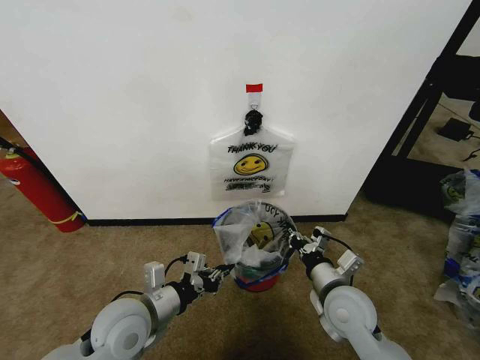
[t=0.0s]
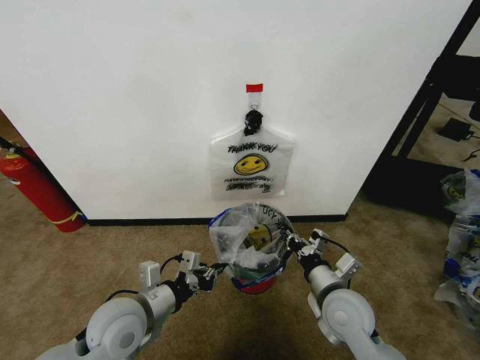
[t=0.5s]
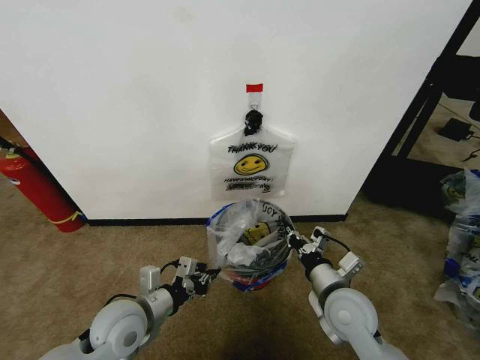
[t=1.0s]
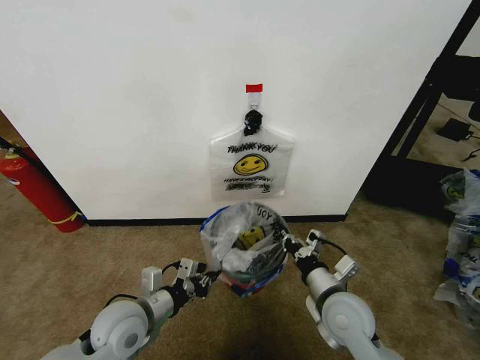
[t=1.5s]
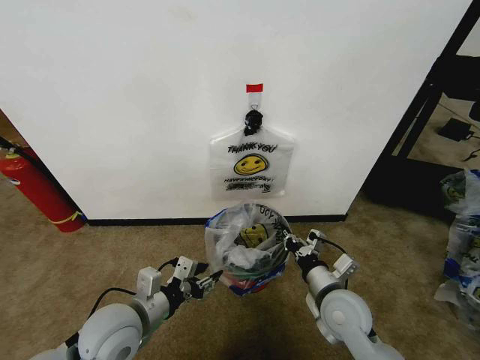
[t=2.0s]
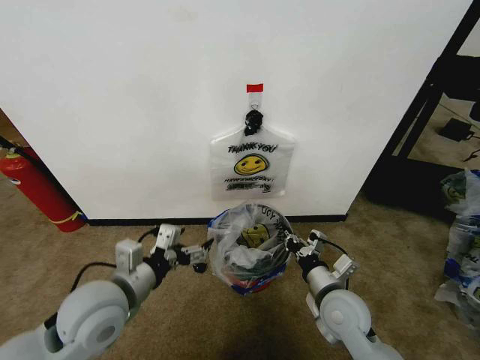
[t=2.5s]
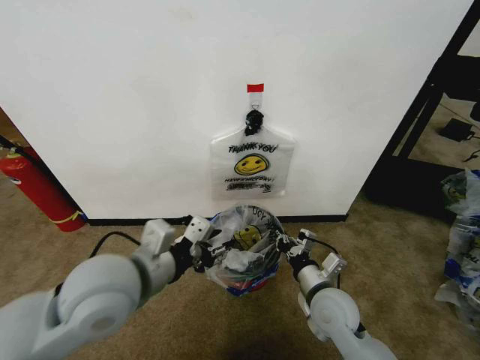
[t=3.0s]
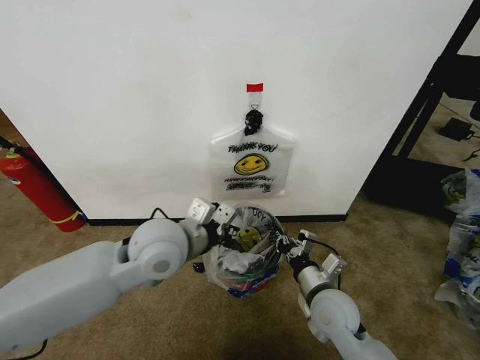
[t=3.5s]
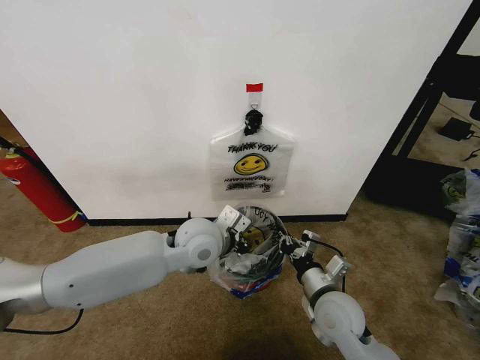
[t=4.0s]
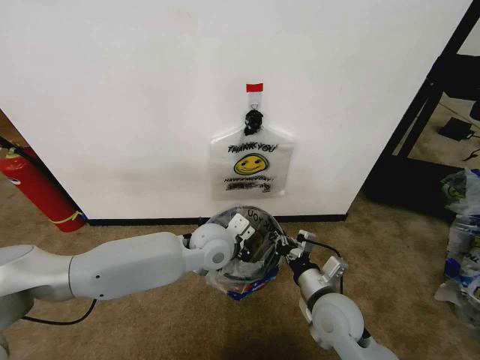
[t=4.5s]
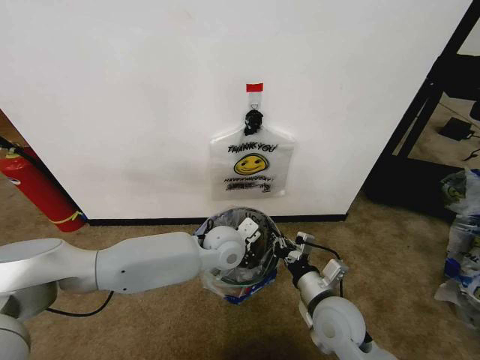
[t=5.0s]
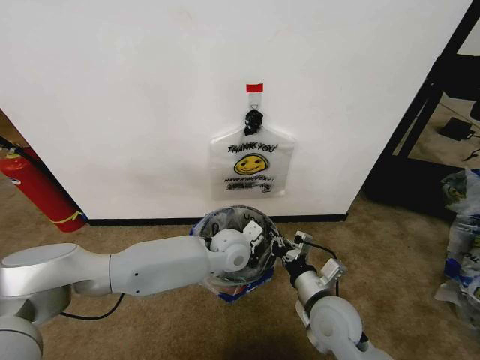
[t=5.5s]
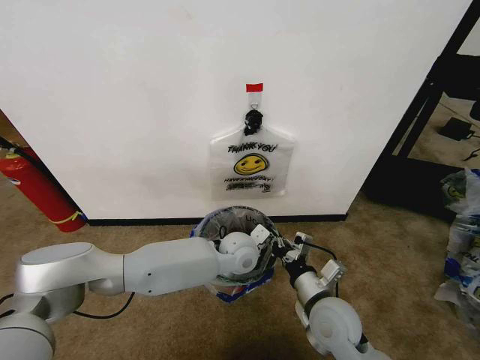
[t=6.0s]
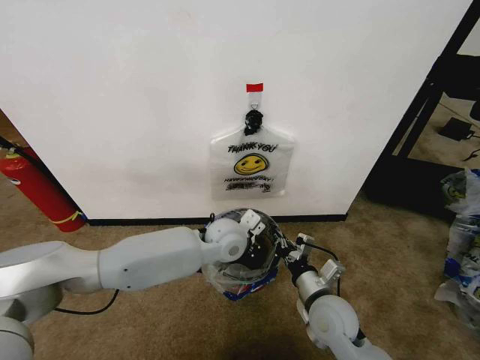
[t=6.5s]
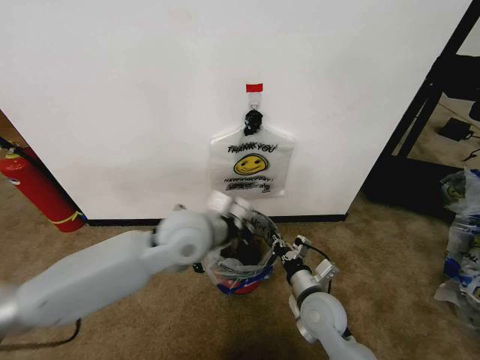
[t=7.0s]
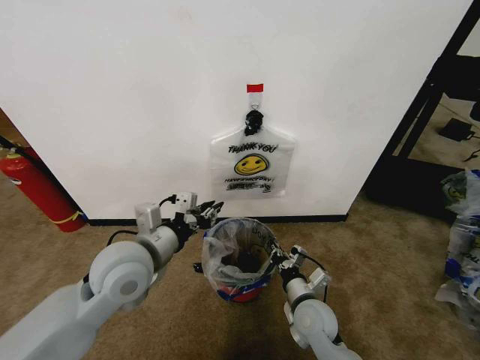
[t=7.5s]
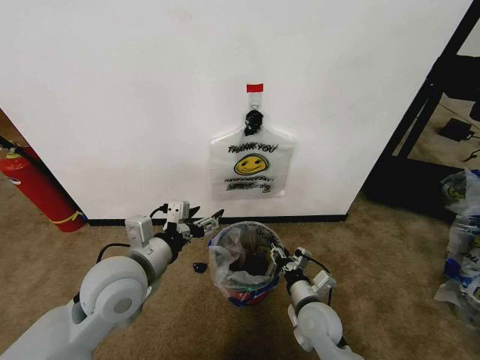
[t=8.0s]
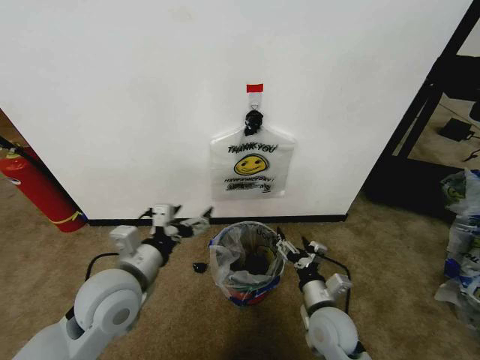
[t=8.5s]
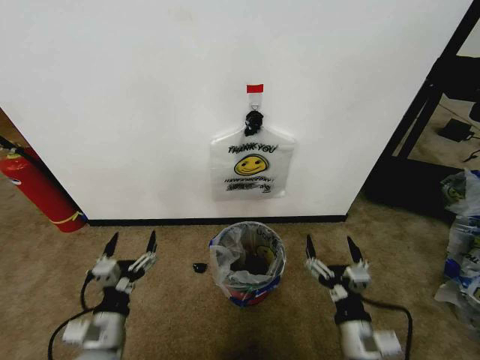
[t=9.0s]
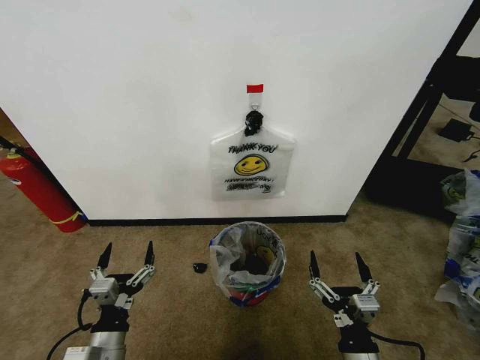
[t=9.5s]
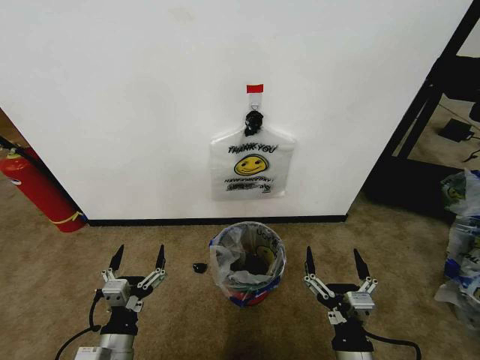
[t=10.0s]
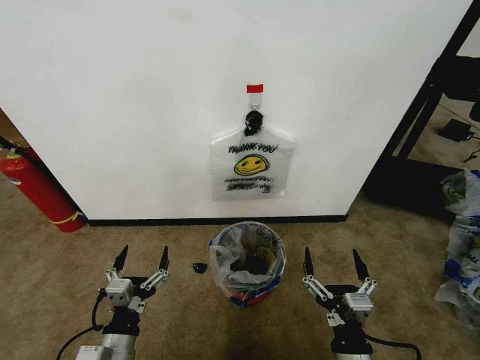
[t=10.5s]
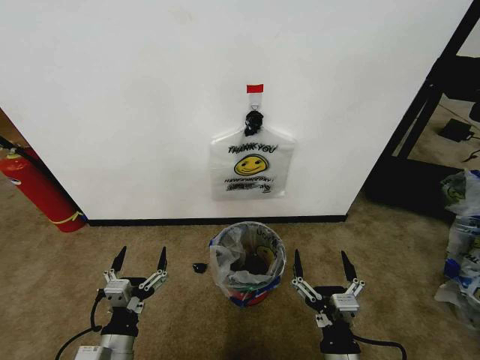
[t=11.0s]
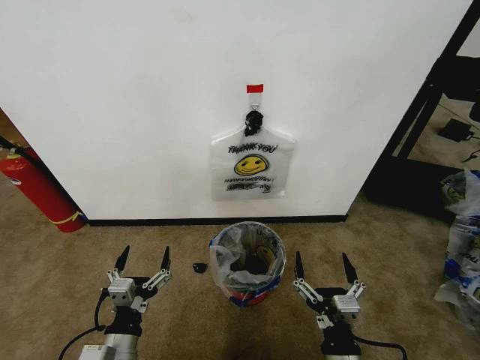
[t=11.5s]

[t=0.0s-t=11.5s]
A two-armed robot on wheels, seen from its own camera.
Task of the whole recording: Pick up the garbage bag from the wall and place it over the trash bin.
t=0.0s to t=2.0s: The left gripper opens its fingers.
t=2.0s to t=4.0s: The left gripper shifts about 20 cm forward, to the right and upward, and closes.
t=4.0s to t=6.0s: The left gripper heads downward and to the right, covering some 15 cm.
t=6.0s to t=7.5s: The right gripper travels downward by roughly 10 cm; the left gripper heads to the left, upward and backward, covering approximately 25 cm.
t=7.5s to t=9.5s: The left gripper is displaced downward and backward by roughly 25 cm, and opens up, while the right gripper goes about 15 cm backward, and opens up.
t=9.5s to t=11.5s: The grippers stay close to where they were, moving slightly.

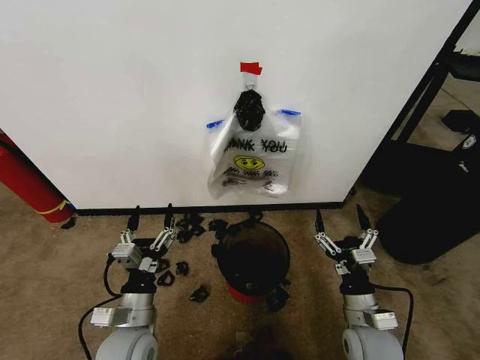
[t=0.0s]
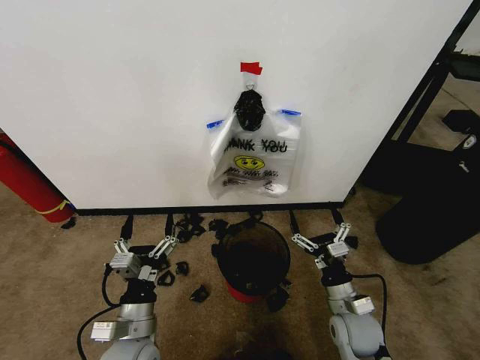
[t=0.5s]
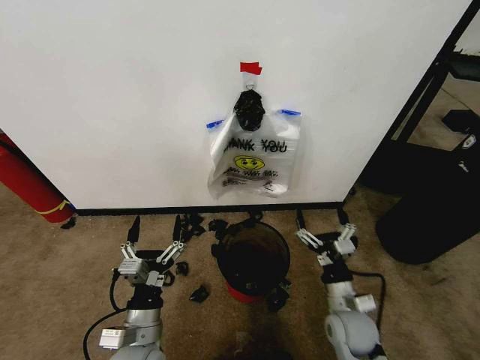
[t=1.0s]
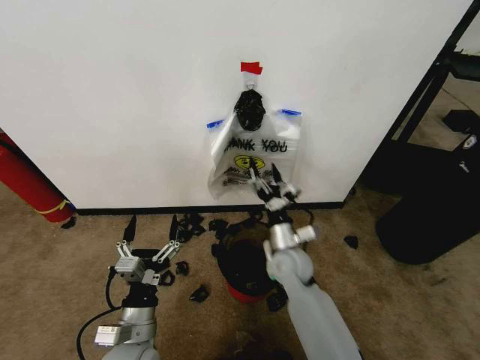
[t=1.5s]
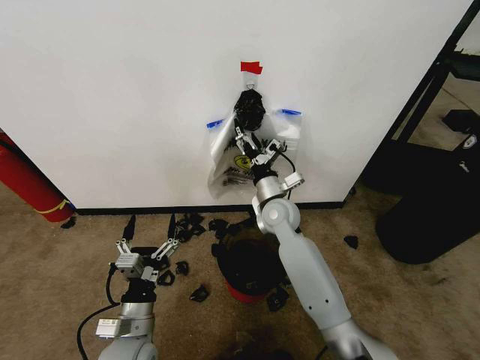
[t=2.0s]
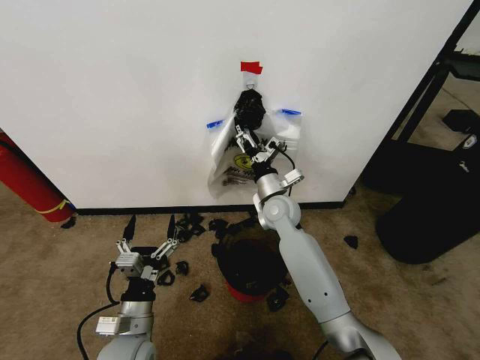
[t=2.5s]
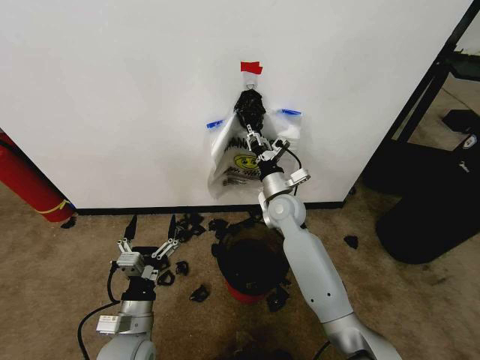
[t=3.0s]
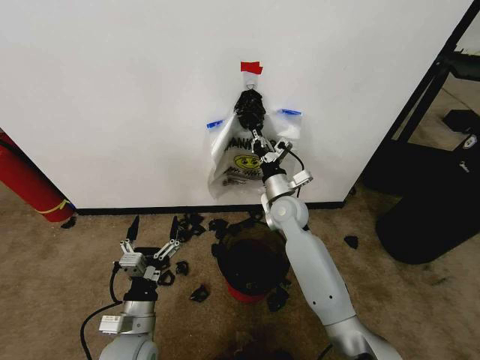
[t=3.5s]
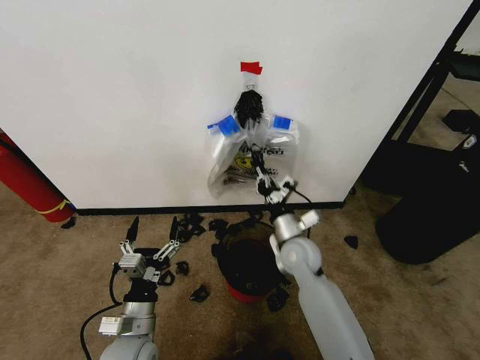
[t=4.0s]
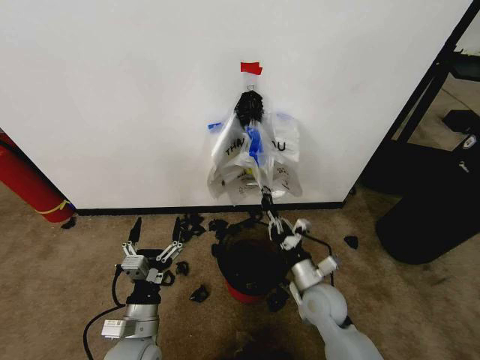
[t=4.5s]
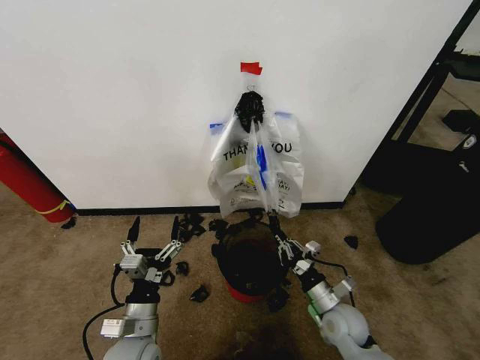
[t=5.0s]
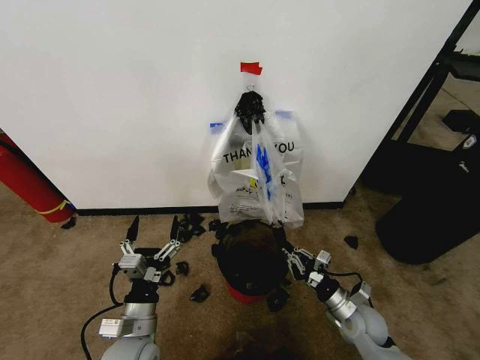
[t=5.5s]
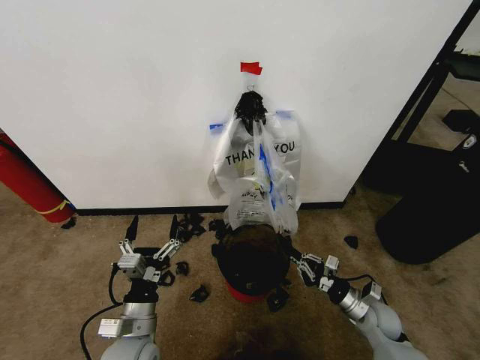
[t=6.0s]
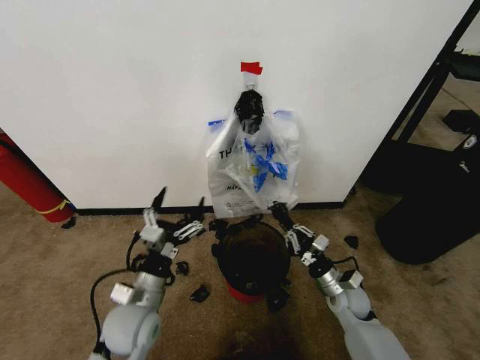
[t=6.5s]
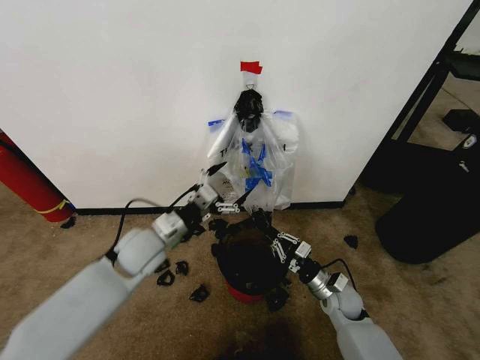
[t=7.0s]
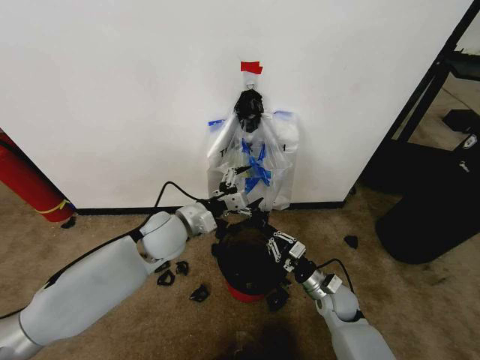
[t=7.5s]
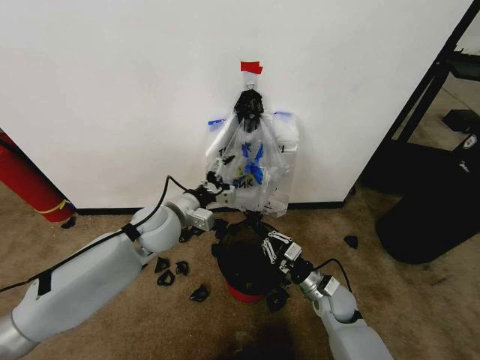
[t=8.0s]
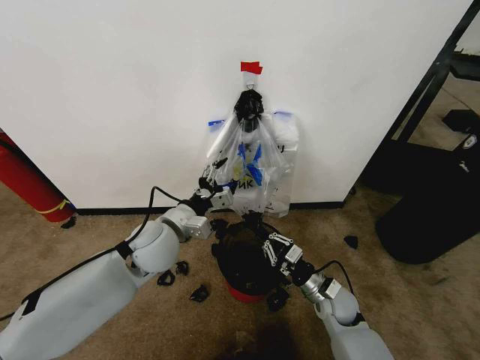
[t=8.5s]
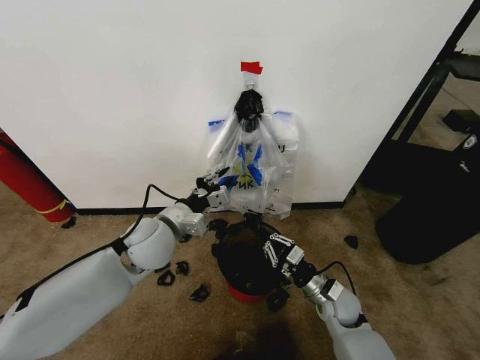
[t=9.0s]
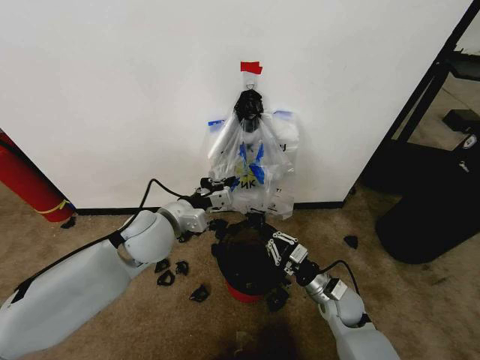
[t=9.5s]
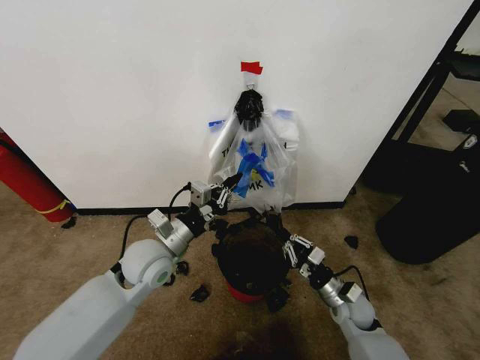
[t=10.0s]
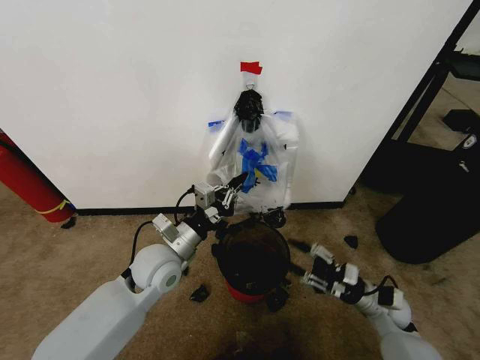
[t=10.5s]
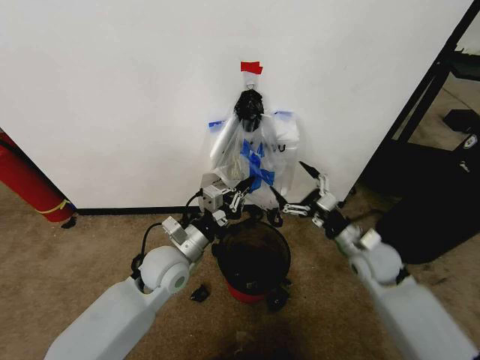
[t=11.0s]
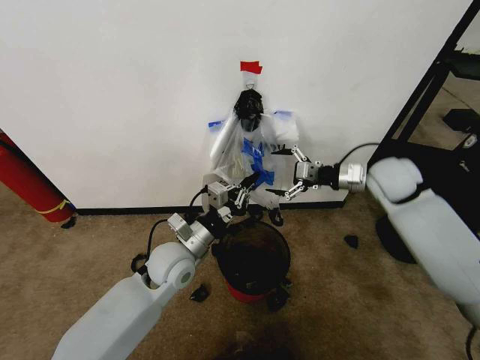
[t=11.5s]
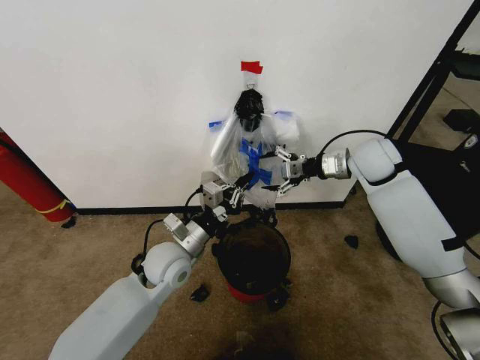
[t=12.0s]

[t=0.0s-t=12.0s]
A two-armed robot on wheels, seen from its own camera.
Task of the whole recording: Pick up the garbage bag from the wall and place it over the trash bin.
t=2.0s to t=4.0s: The right gripper moves backward and downward, some 10 cm, and closes up.
t=4.0s to t=6.0s: The right gripper shifts some 25 cm to the right, downward and backward.
t=6.0s to t=8.0s: The right gripper goes roughly 10 cm to the left, while the left gripper shifts about 25 cm forward and upward.
t=8.0s to t=10.0s: The left gripper is displaced backward by about 5 cm, and closes its fingers.
t=10.0s to t=12.0s: The right gripper is displaced upward and forward by approximately 40 cm, and opens, while the left gripper changes place by roughly 5 cm.

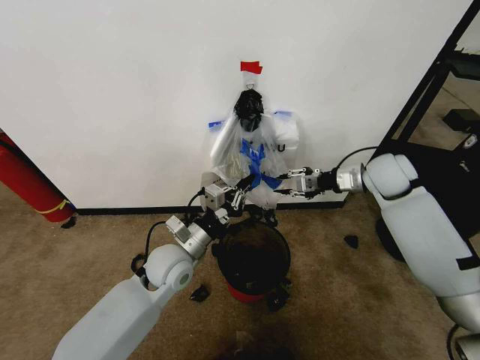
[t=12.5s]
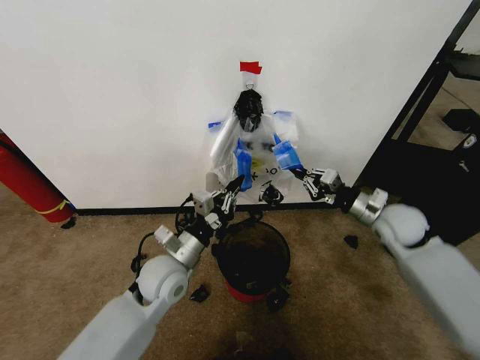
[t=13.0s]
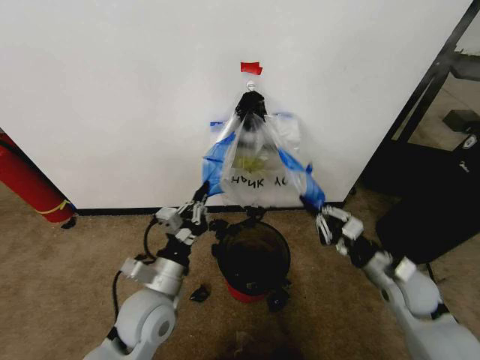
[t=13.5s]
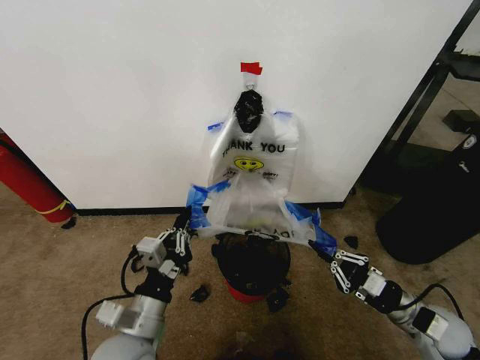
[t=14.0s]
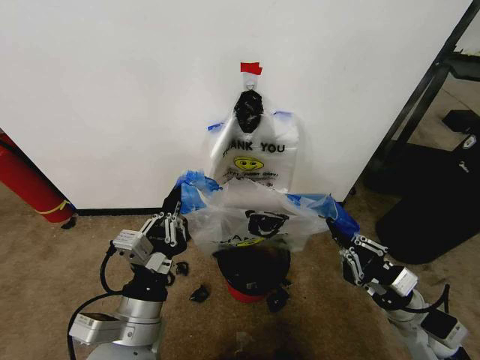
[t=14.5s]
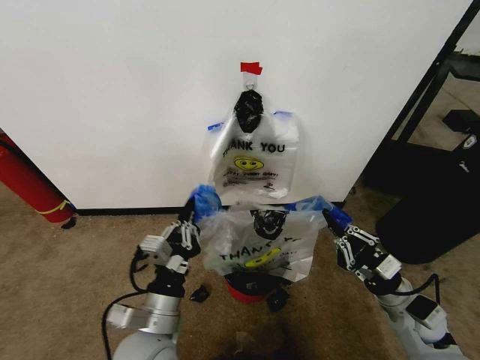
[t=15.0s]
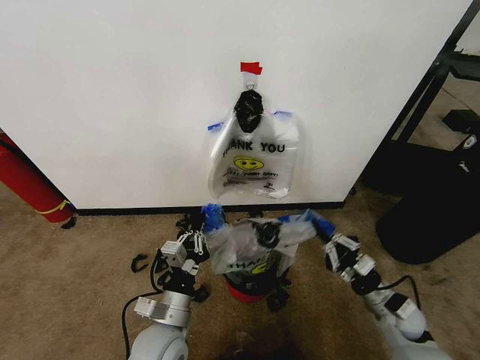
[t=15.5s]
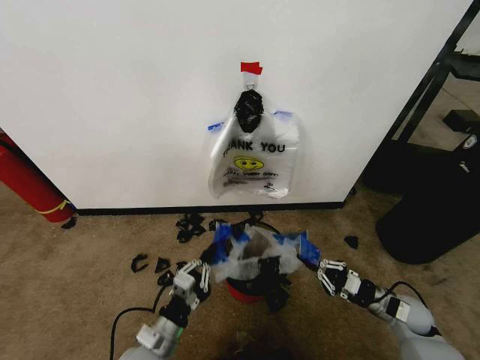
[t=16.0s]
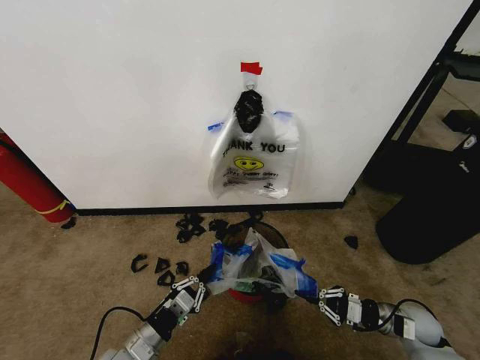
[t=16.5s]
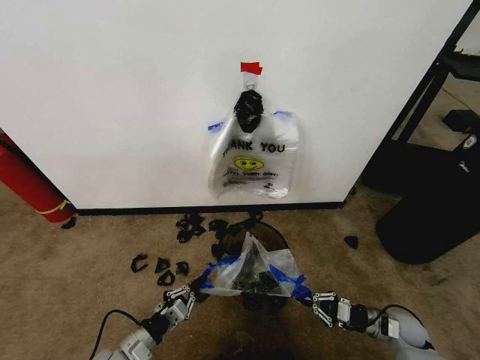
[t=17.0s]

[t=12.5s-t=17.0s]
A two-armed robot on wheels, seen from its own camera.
Task of the whole recording: Pick up the garbage bag from the wall and place it over the trash bin.
t=12.5s to t=14.5s: The right gripper heads backward and downward, covering about 30 cm. The left gripper travels backward by approximately 20 cm.
t=14.5s to t=17.0s: The right gripper heads downward and to the right, covering some 20 cm. The left gripper travels downward and to the left by approximately 25 cm.
